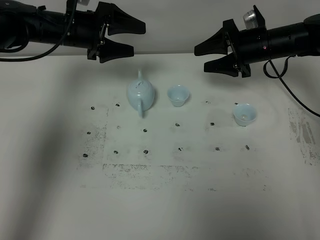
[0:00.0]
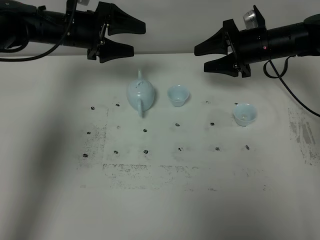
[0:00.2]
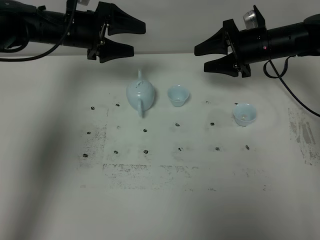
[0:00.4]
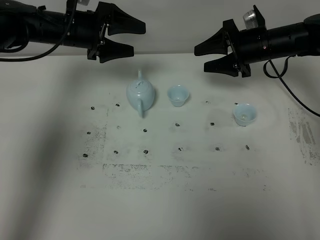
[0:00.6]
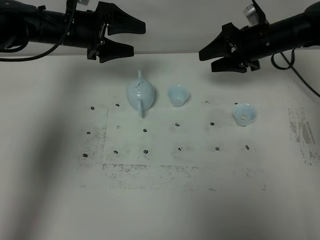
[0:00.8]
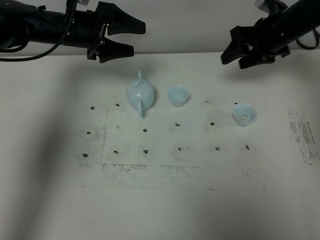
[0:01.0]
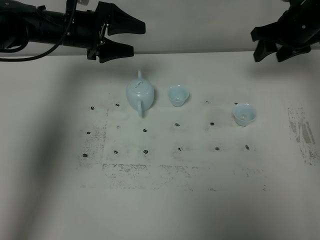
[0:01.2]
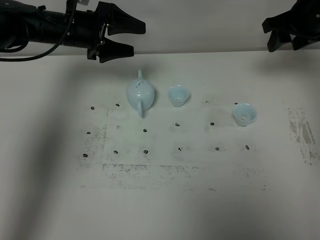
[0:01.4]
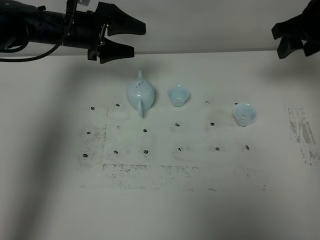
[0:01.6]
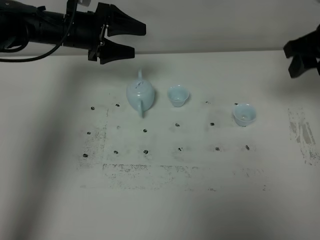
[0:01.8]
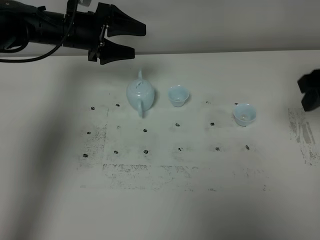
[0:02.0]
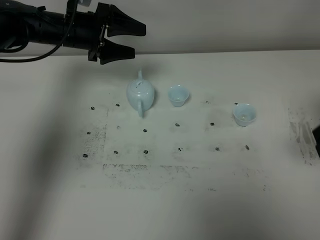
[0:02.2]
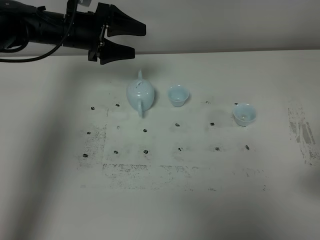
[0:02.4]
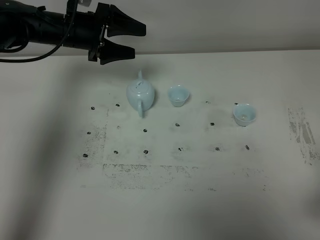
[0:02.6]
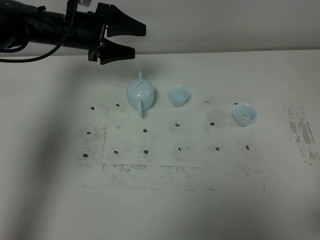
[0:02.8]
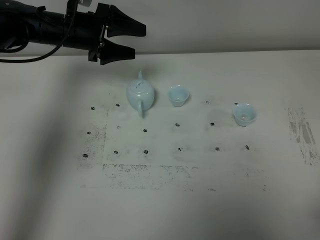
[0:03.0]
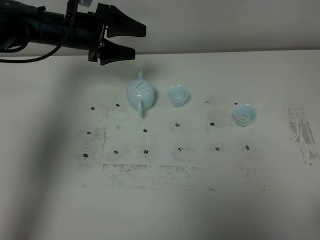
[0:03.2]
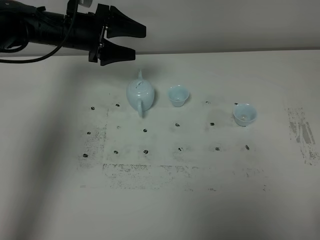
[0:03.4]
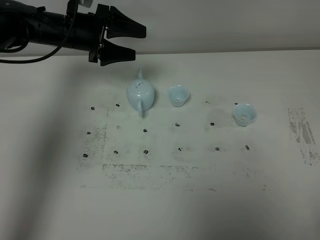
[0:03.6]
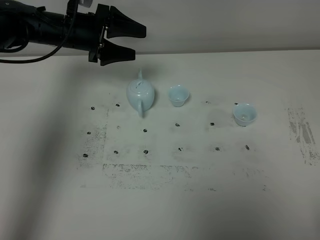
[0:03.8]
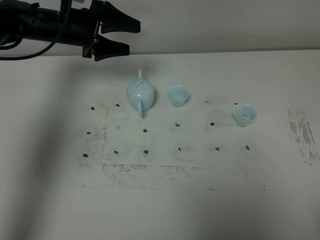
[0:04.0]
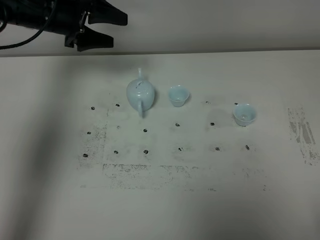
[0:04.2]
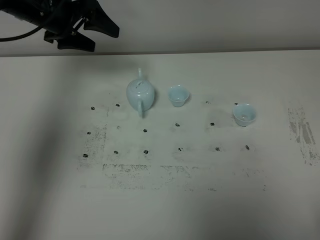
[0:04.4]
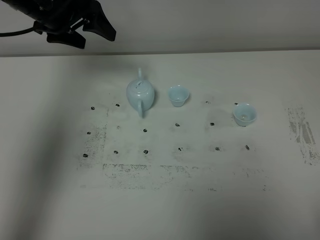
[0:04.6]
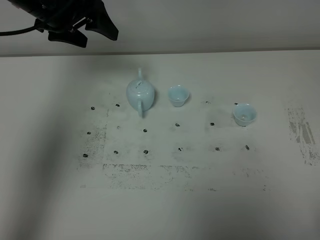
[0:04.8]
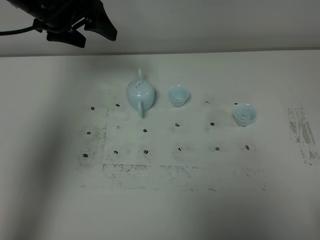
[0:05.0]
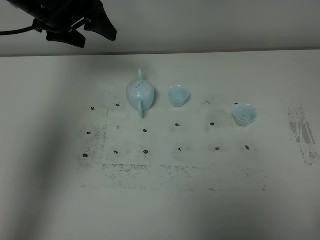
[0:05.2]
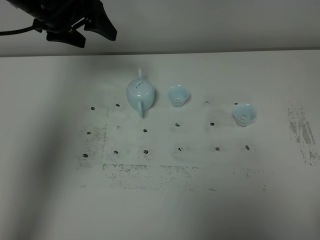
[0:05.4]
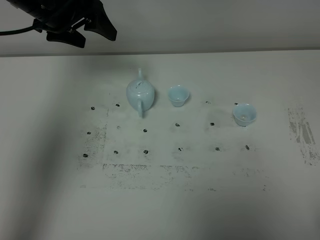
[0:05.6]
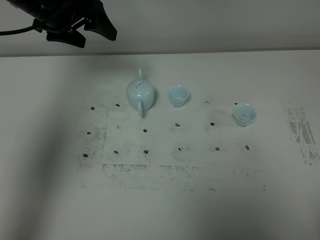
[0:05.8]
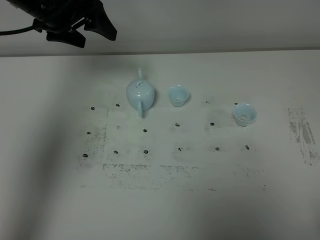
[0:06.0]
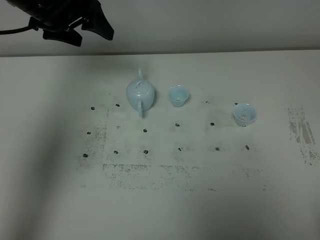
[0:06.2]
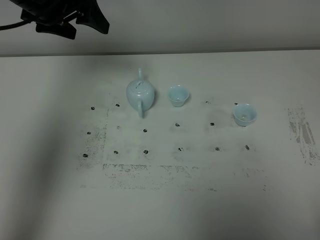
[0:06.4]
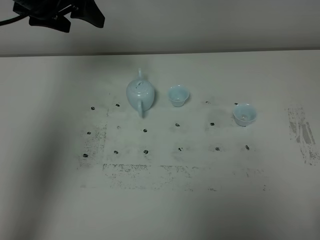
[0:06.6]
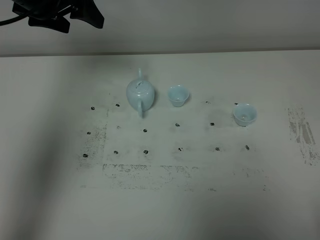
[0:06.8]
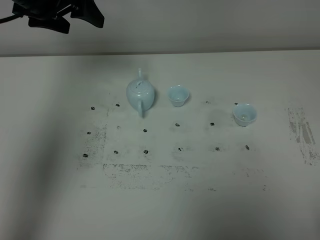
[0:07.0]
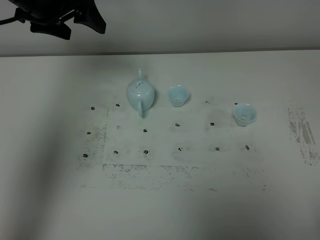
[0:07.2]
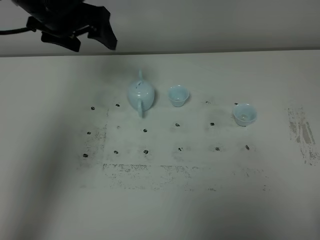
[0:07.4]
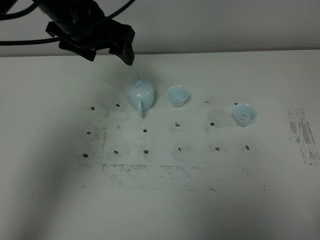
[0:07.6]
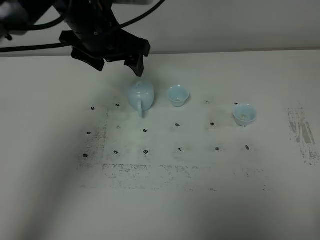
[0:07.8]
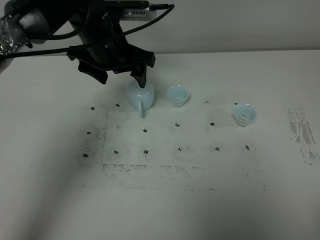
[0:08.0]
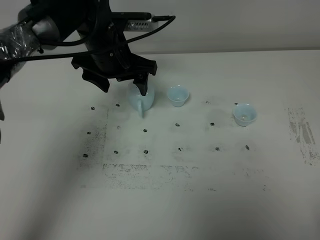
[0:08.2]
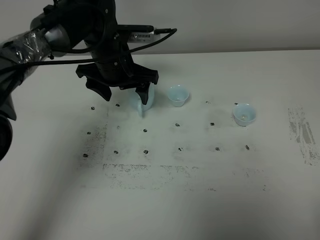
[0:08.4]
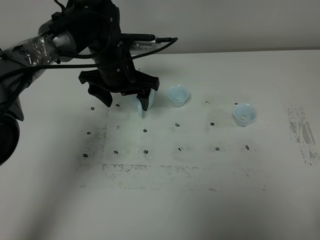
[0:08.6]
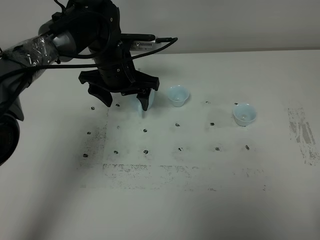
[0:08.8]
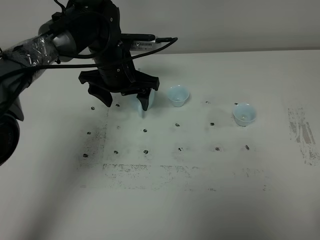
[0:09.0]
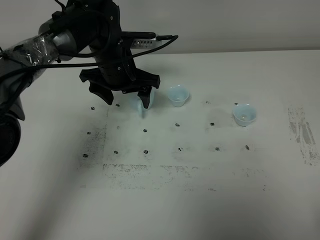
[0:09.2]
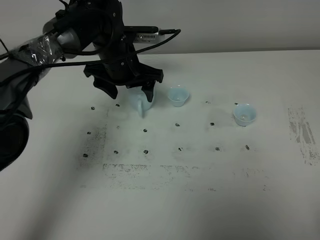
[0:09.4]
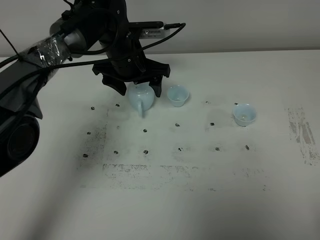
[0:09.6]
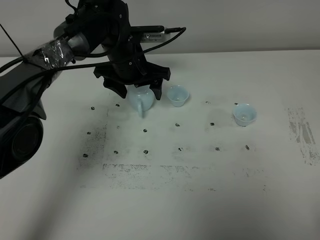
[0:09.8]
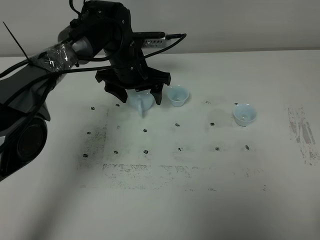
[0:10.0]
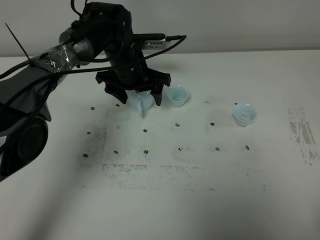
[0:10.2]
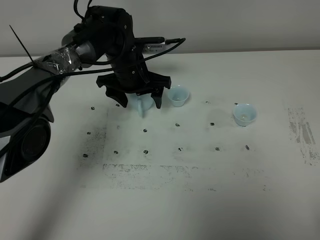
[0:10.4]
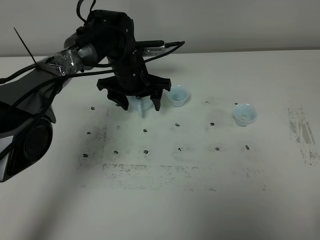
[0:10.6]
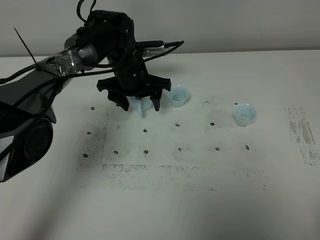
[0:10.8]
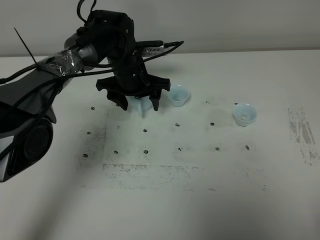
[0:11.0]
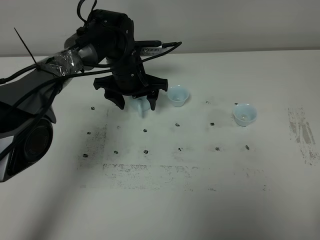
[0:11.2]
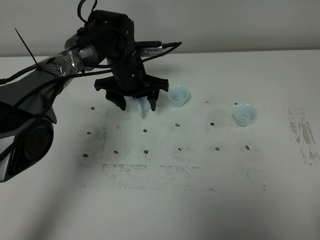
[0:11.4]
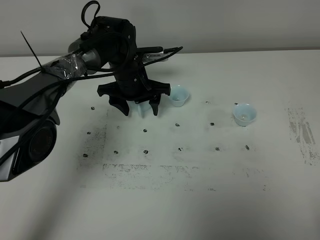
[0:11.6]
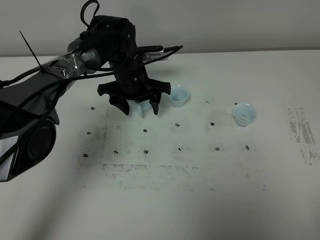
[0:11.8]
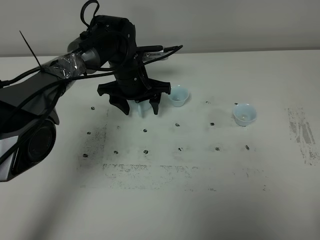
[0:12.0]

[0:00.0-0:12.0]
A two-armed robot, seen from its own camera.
Task of the whole recording: grasp the blue porcelain teapot and pour the tea into the two blue porcelain teacups one by one, put the blue porcelain teapot back in its original place.
0:00.0 to 0:01.6: The right gripper moves upward, to the right and backward, some 15 cm.
0:01.6 to 0:03.0: The right gripper shifts approximately 35 cm backward.
0:03.0 to 0:04.4: The right gripper goes some 5 cm backward; the left gripper goes about 5 cm upward.
0:04.4 to 0:06.0: The grippers make only small movements.
0:06.0 to 0:07.6: The left gripper travels to the right by some 5 cm.
0:07.6 to 0:09.0: The left gripper shifts about 10 cm downward.
0:09.0 to 0:10.4: The left gripper changes place by some 5 cm.
0:10.4 to 0:12.0: The grippers make only small movements.

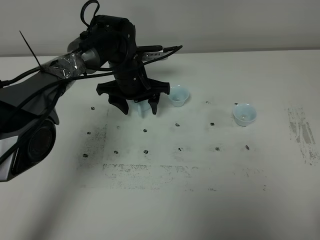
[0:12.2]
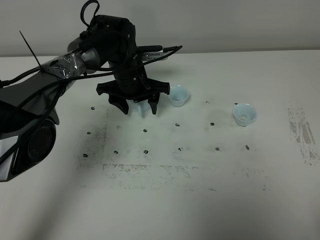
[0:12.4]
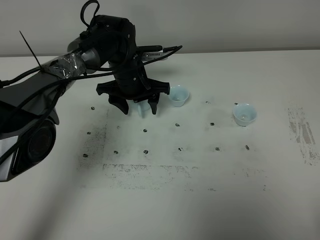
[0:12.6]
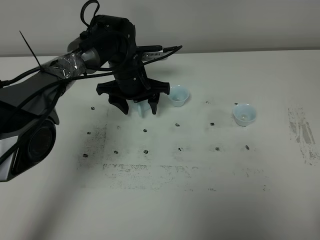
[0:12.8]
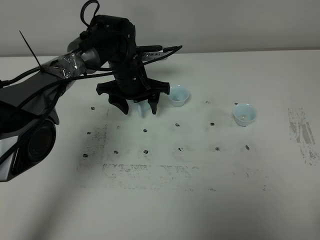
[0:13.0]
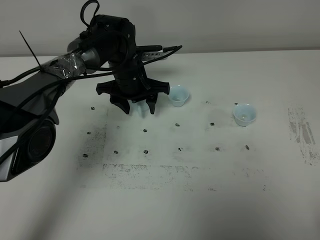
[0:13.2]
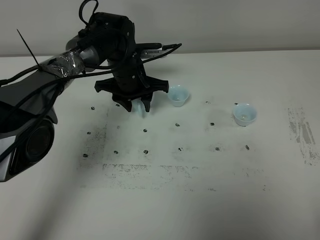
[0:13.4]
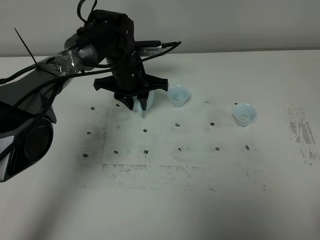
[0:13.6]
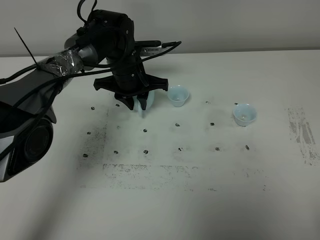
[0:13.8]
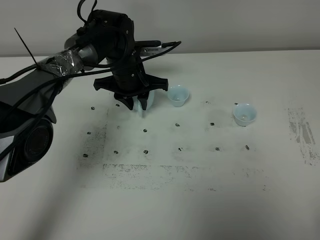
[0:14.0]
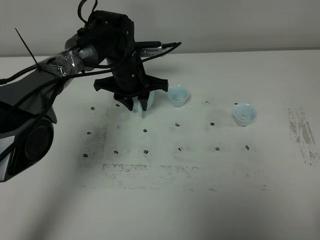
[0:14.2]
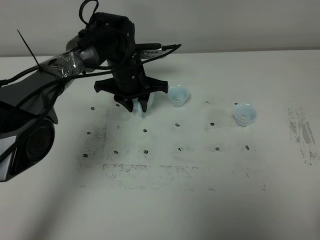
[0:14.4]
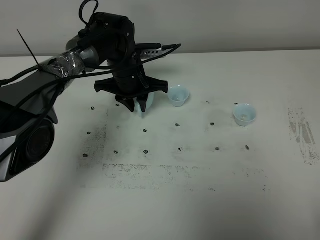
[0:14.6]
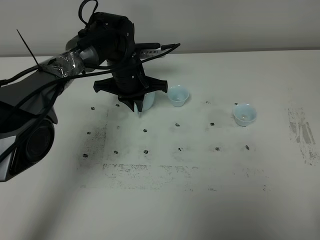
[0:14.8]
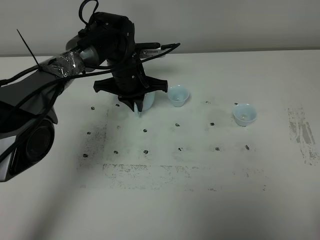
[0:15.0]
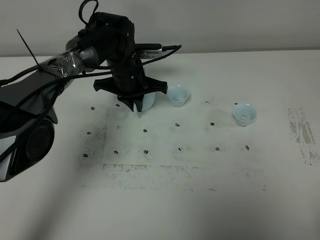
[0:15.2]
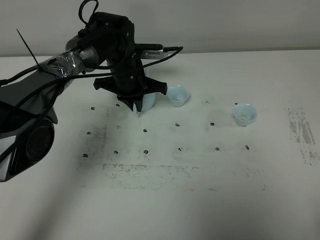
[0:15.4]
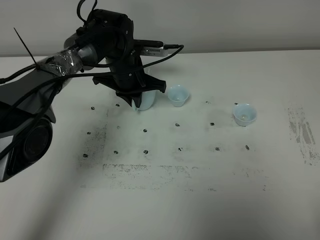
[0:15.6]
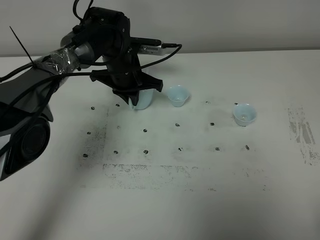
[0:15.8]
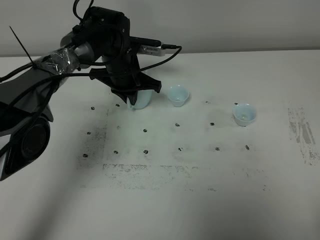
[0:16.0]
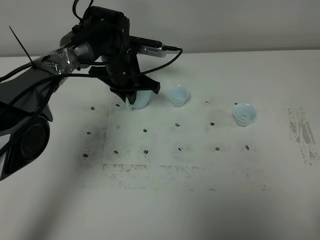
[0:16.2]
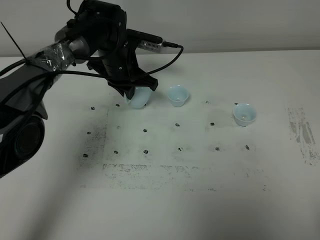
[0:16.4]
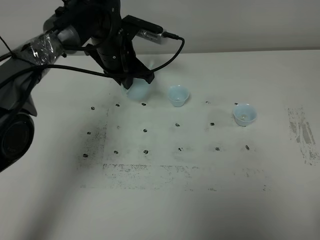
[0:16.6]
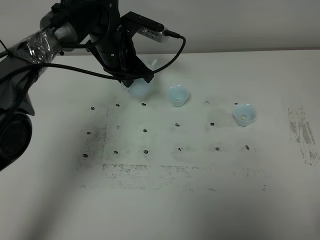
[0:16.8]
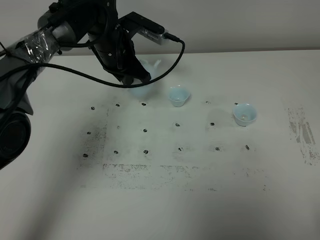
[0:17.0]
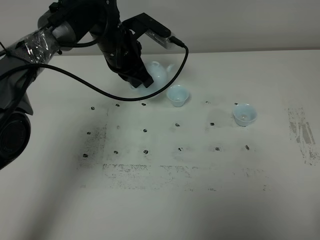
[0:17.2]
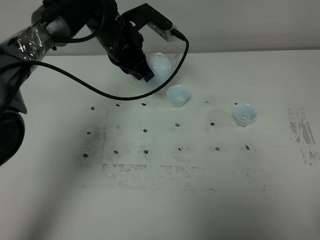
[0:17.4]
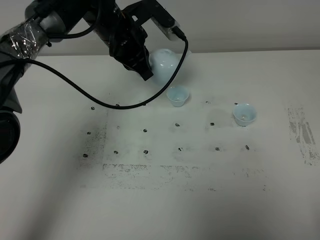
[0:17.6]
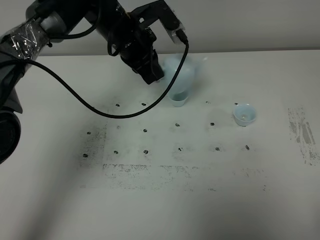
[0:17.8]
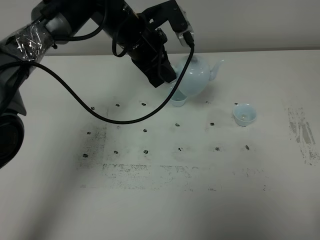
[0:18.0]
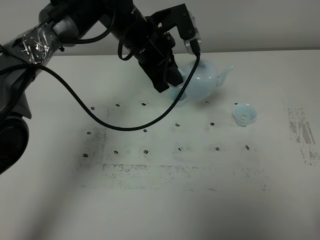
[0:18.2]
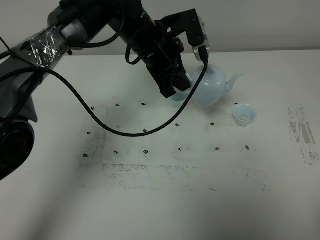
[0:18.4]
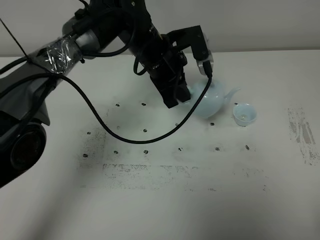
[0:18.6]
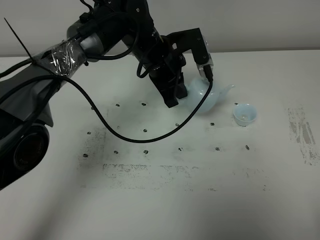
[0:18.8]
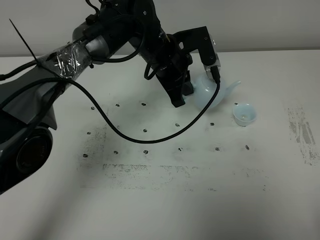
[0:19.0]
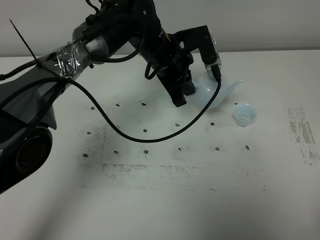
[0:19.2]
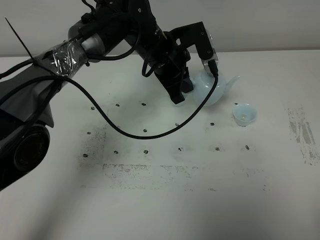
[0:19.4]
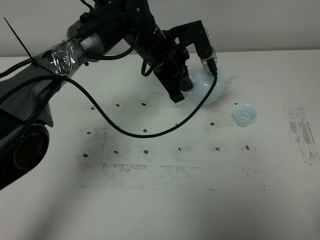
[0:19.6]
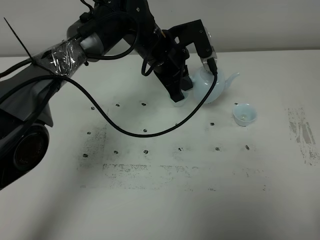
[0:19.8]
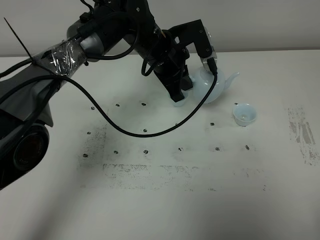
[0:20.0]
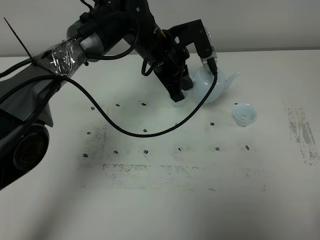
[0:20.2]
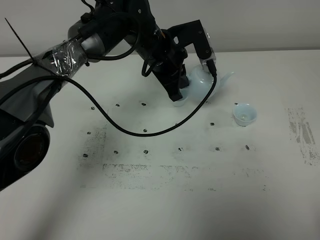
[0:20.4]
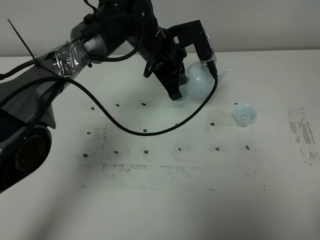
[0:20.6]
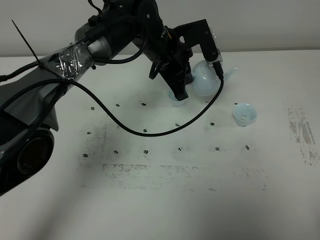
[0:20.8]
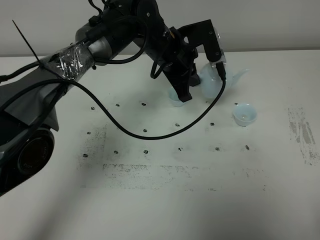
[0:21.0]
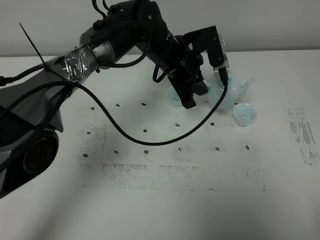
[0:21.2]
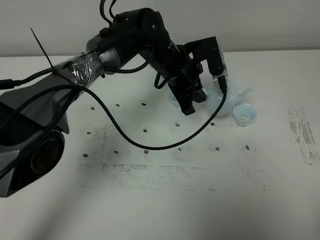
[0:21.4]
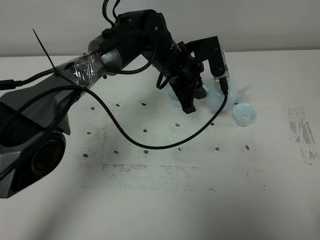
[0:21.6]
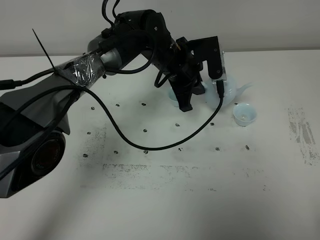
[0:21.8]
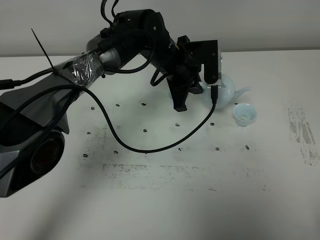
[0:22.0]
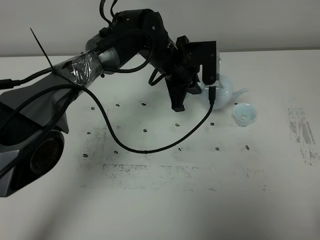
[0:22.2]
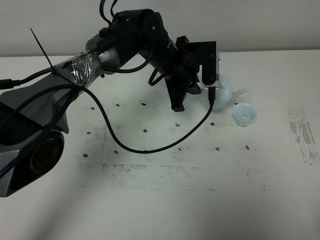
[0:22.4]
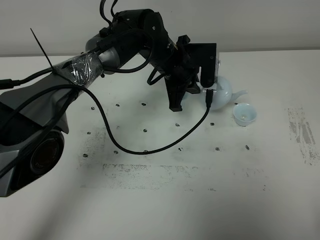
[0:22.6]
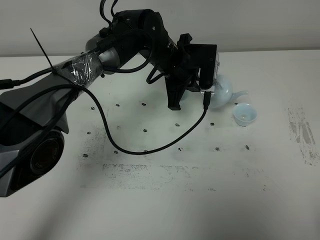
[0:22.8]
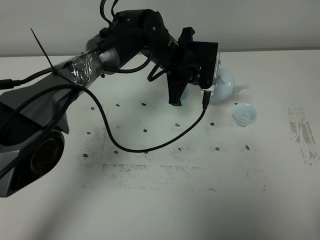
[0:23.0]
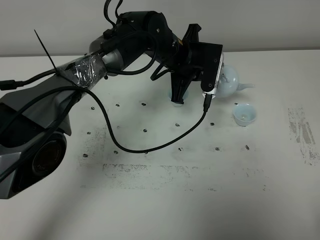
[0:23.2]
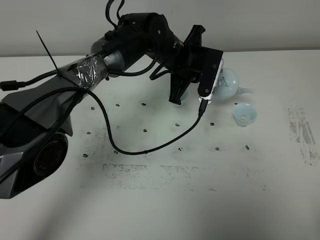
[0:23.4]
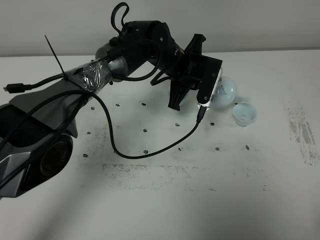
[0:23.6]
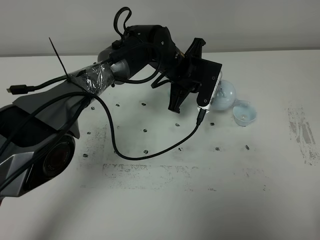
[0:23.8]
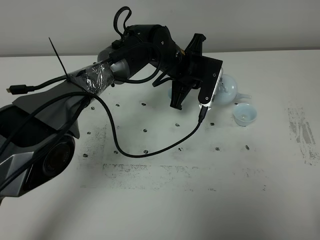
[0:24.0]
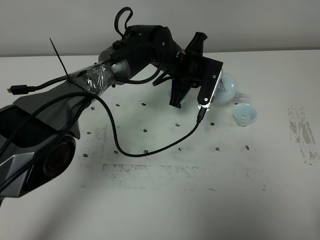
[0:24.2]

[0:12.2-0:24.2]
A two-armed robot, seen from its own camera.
Task of the whole recording: grasp the blue porcelain teapot and pour the tea into the two blue porcelain teacups one by one, put the blue porcelain teapot back in its original place.
Step, 0:12.2 to 0:16.4: Pick up the teapot with the left gripper.
0:12.2 to 0:13.8: The left gripper closes up.
0:13.8 to 0:15.2: Both grippers stay put.
0:15.2 to 0:16.6: The left gripper travels upward by approximately 5 cm.
0:16.6 to 0:18.2: The left gripper shifts some 5 cm to the right.
0:18.2 to 0:19.8: The grippers make only small movements.
0:19.8 to 0:21.2: There are only small adjustments of the grippers.
0:21.2 to 0:22.6: The grippers stay close to where they were, moving slightly.
